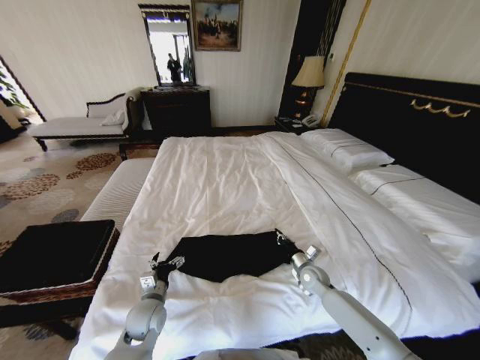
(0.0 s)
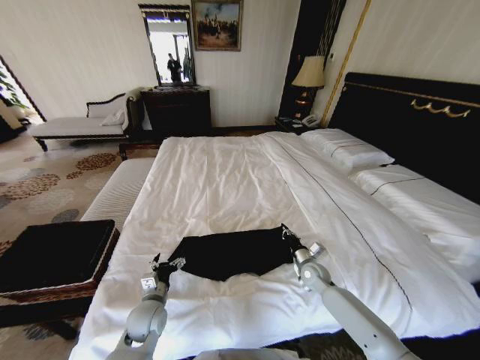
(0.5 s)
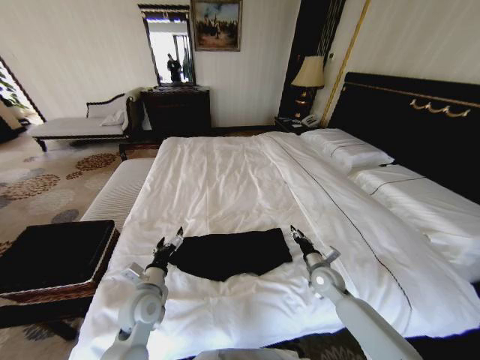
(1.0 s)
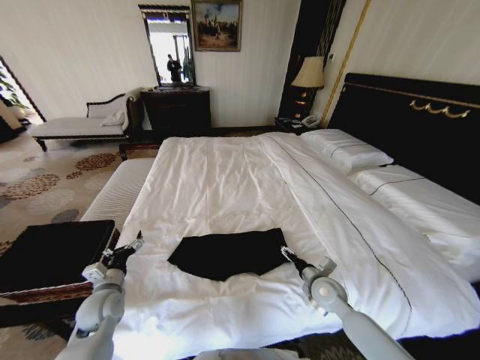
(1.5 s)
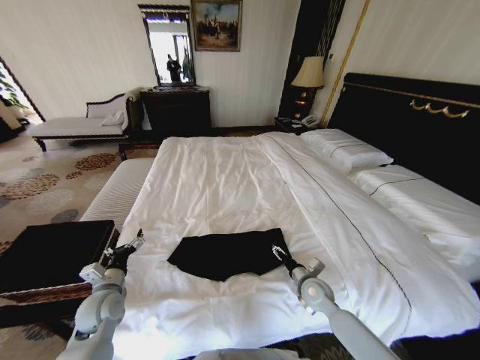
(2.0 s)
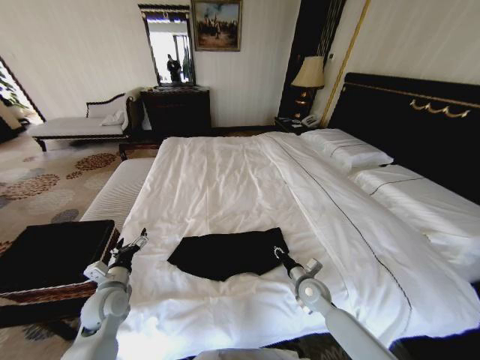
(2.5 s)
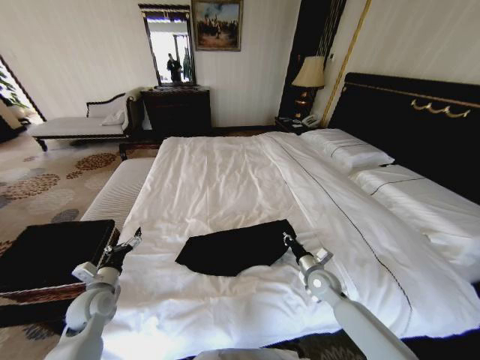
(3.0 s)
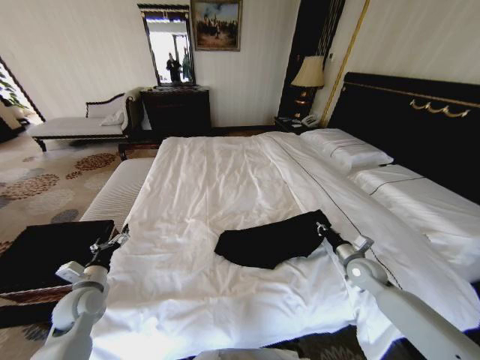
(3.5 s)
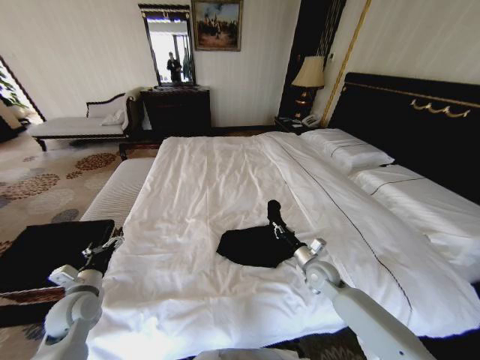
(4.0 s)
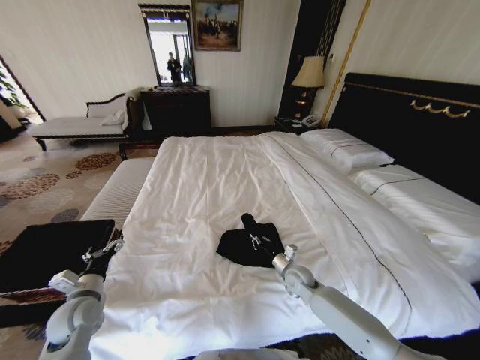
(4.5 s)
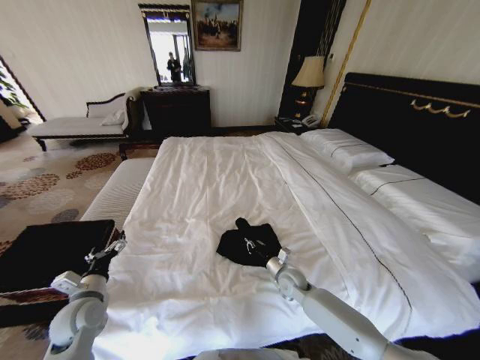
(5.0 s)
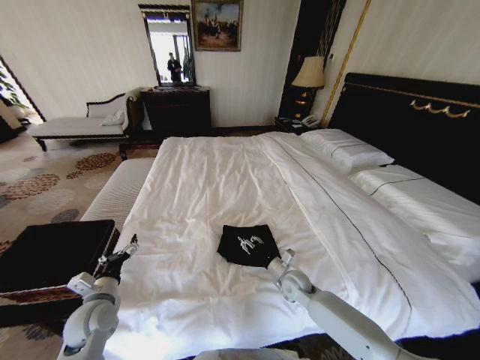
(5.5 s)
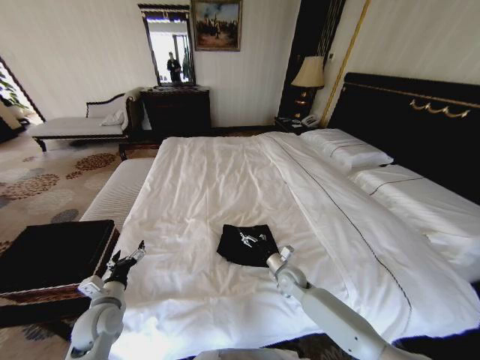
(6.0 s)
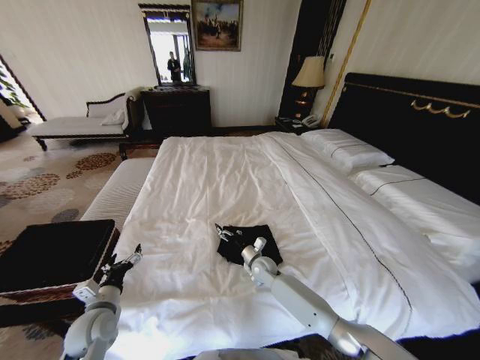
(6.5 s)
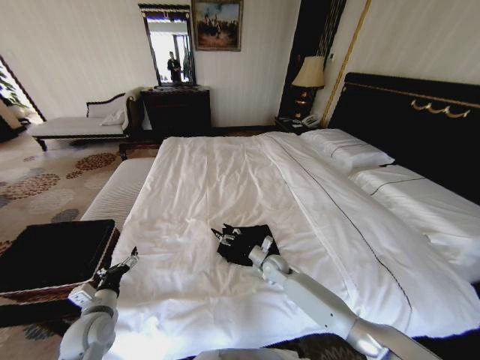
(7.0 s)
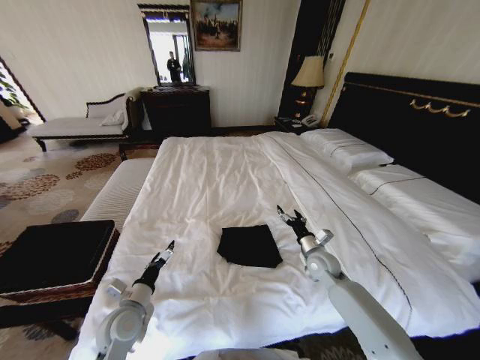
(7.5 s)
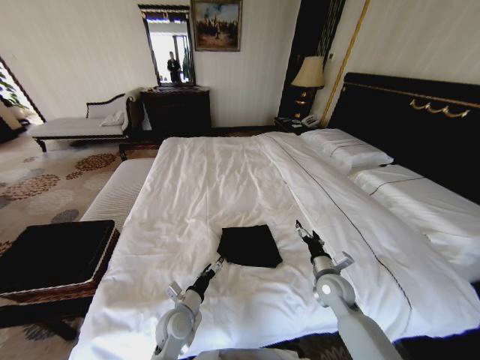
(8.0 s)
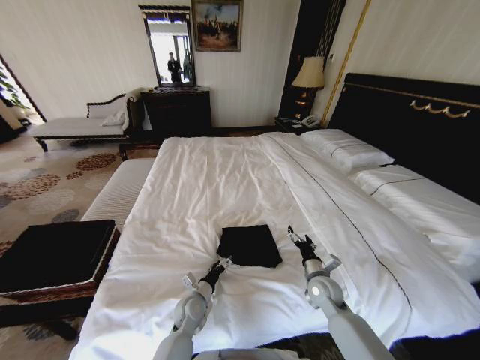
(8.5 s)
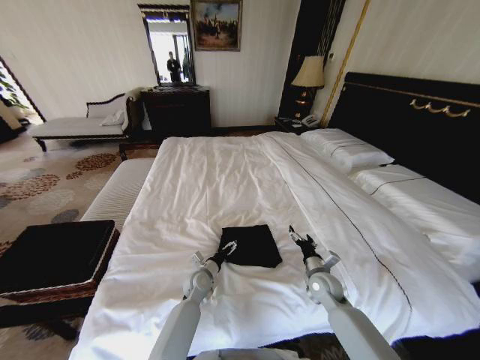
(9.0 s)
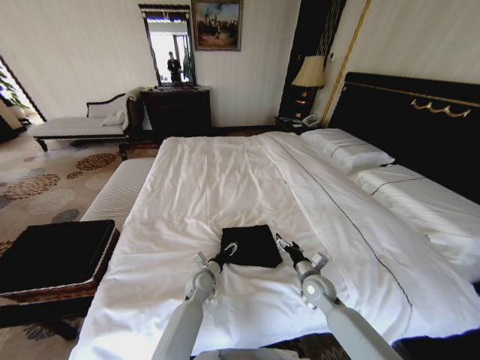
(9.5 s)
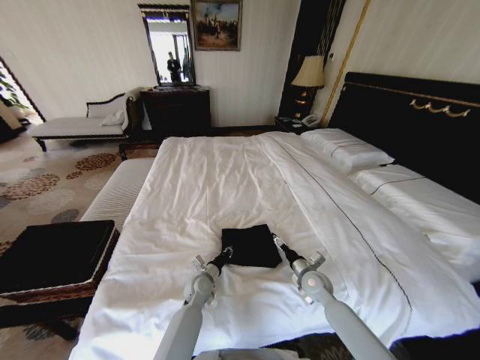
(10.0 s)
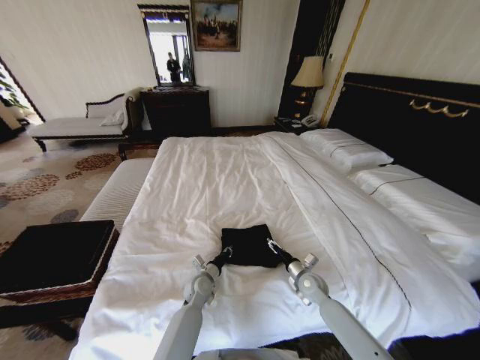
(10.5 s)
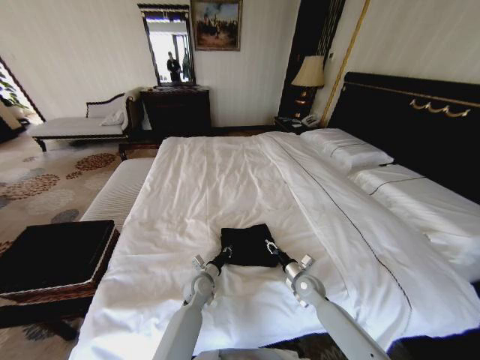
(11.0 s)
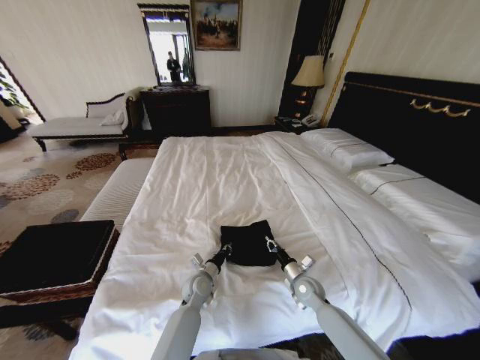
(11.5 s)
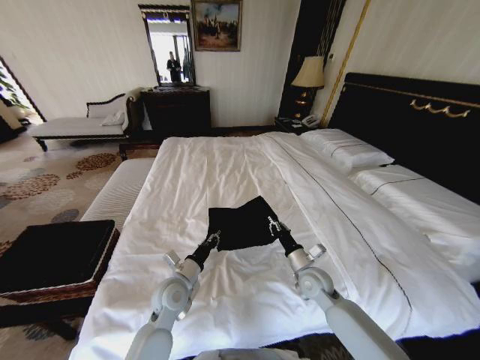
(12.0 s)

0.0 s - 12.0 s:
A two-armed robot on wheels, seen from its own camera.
Task of the whole recording: Fold the clothes on the bed and place them into the basket.
0.0 s - 2.0 s: The right gripper shifts approximately 5 cm backward, and opens its fingers. Meanwhile the left gripper shifts approximately 10 cm to the left and upward.
2.0 s - 4.0 s: The right gripper travels to the right and back again, roughly 15 cm each way, and closes up; the left gripper moves to the left, some 5 cm.
4.0 s - 6.0 s: The left gripper shifts some 5 cm to the right, while the right gripper heads to the left and downward, covering roughly 10 cm, and opens its fingers.
6.0 s - 8.0 s: The right gripper goes roughly 15 cm to the right, upward and backward. The left gripper moves to the right, some 20 cm.
8.0 s - 10.0 s: The right gripper travels downward by roughly 5 cm, while the left gripper travels forward by some 10 cm, and closes its fingers.
10.0 s - 12.0 s: The left gripper is displaced upward, backward and to the left by about 15 cm; the right gripper moves upward, roughly 5 cm, and closes its fingers.

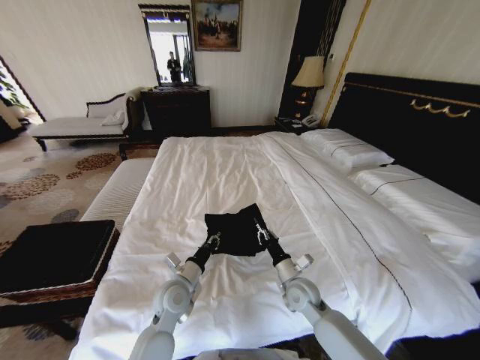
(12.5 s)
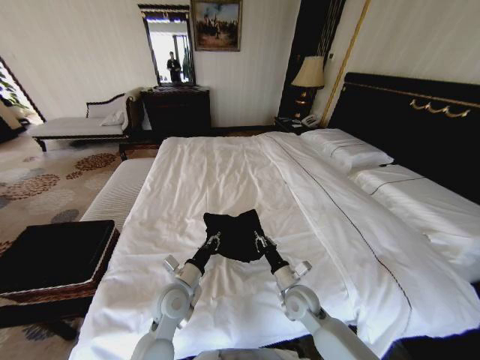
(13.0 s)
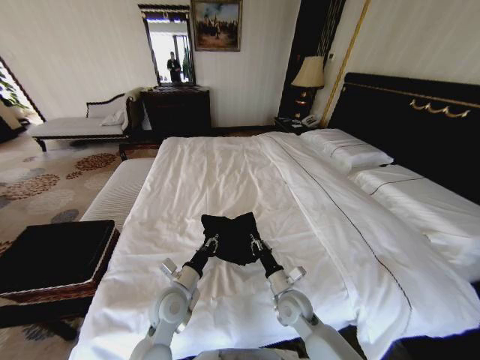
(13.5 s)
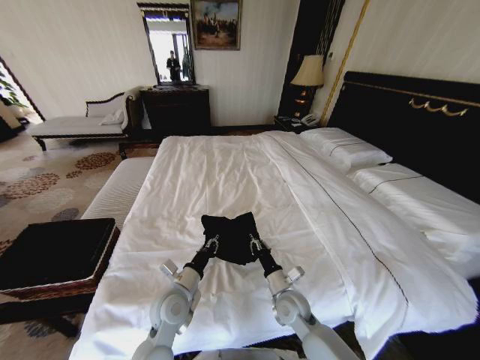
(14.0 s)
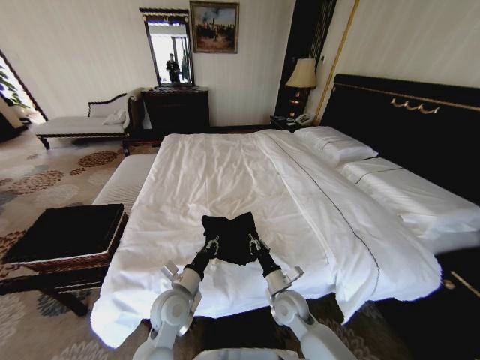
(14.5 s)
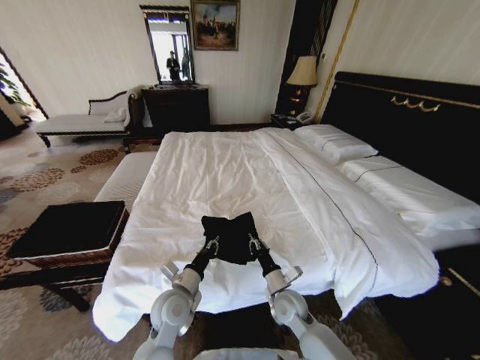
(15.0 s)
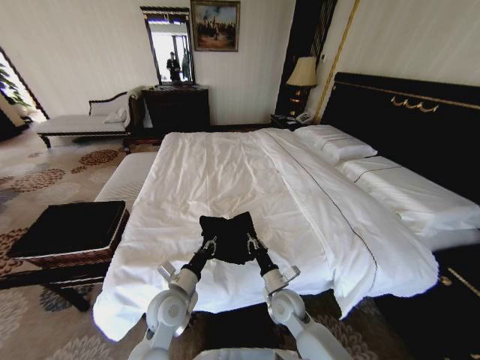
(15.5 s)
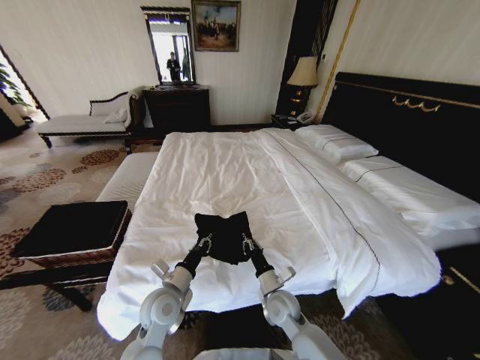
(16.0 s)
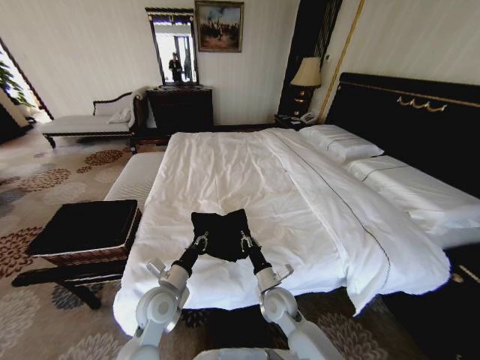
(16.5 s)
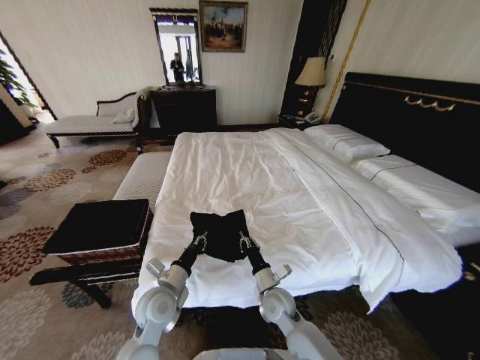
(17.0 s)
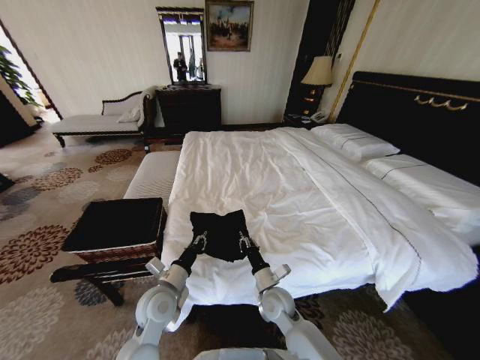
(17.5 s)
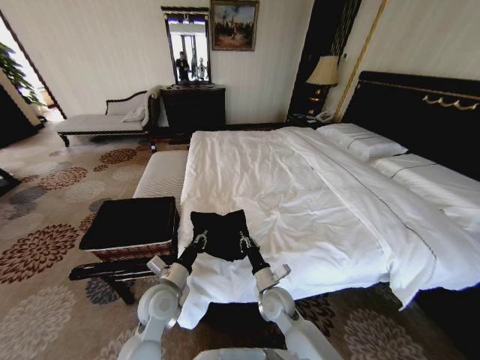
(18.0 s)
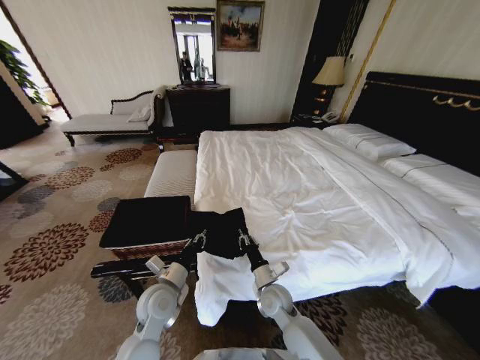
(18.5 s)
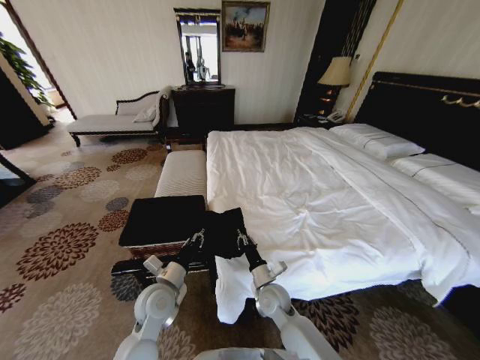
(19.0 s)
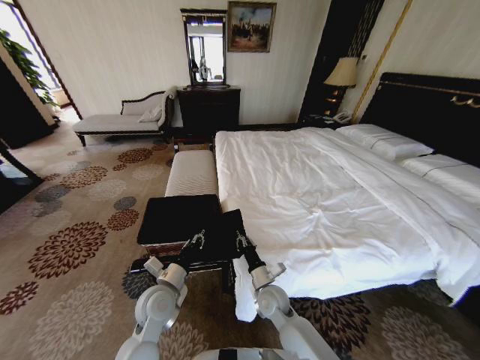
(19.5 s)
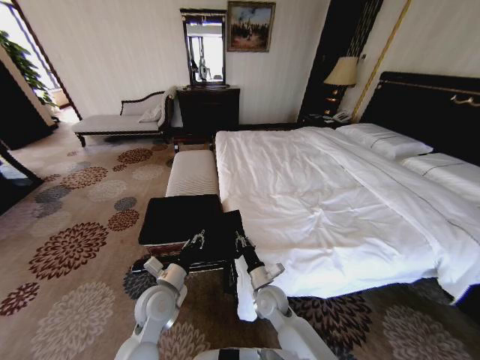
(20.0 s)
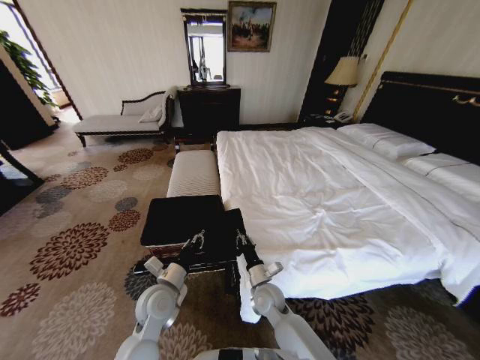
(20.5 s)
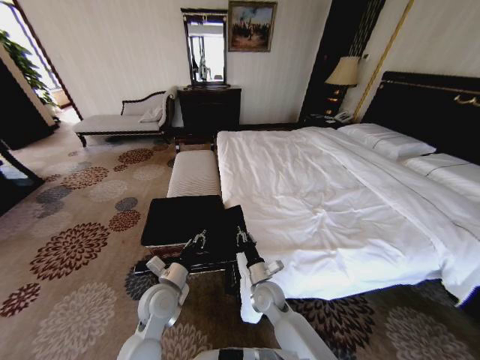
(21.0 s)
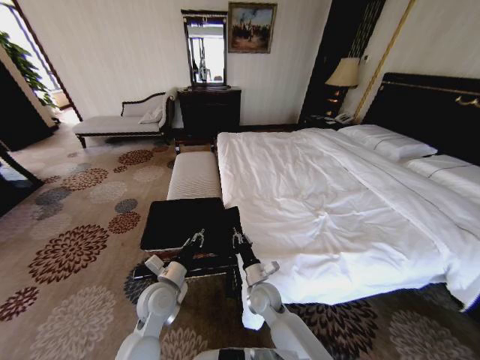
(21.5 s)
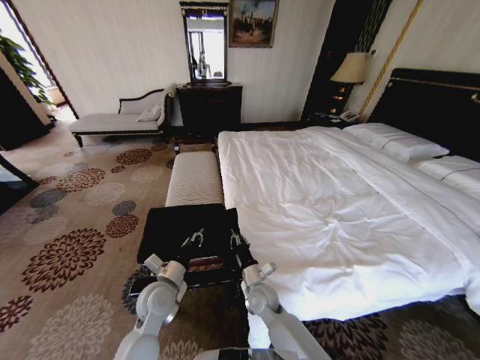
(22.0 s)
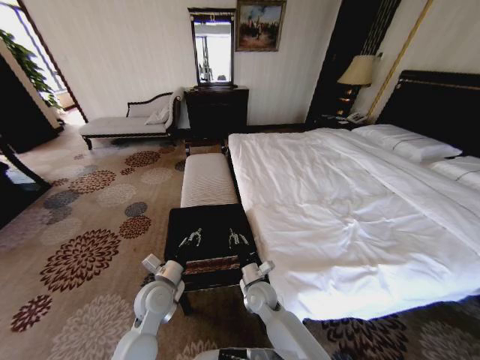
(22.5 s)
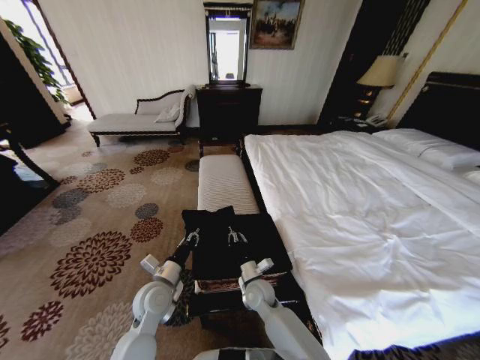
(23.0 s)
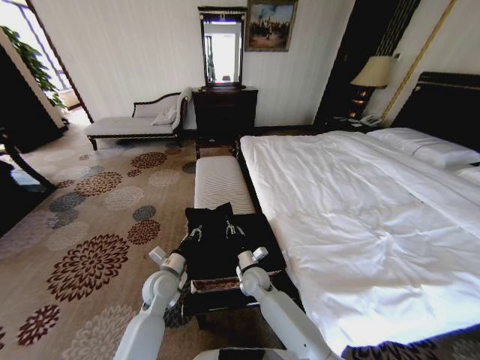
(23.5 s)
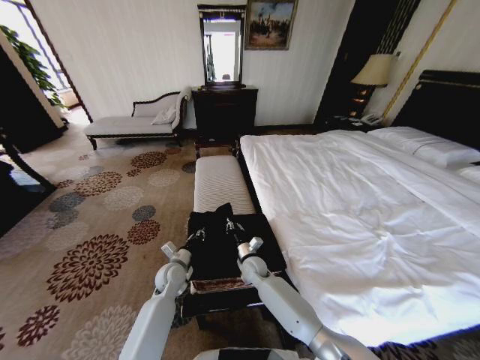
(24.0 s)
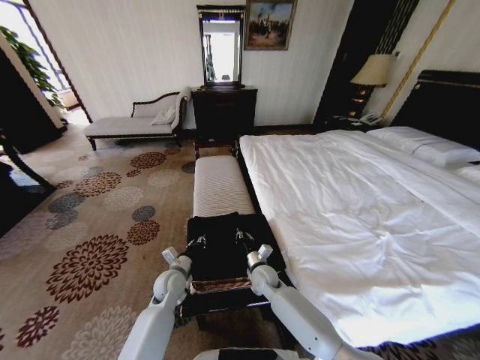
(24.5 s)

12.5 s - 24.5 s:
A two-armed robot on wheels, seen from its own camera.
Task of the whole recording: Fold the clothes on the bed and place them into the basket.
12.5 s - 14.5 s: The right gripper shifts by roughly 5 cm.
22.5 s - 24.5 s: The left gripper travels downward and forward by roughly 10 cm. Meanwhile the right gripper heads forward, covering about 5 cm.

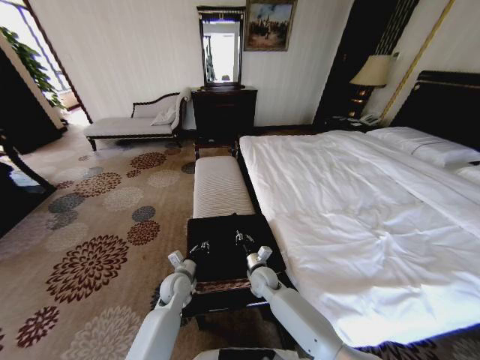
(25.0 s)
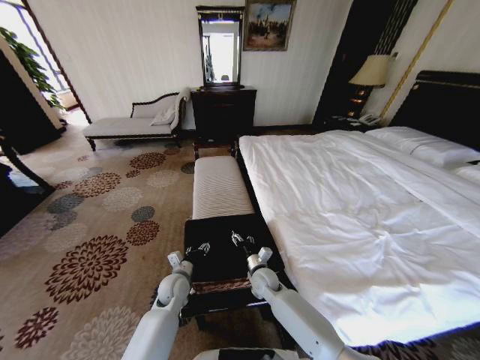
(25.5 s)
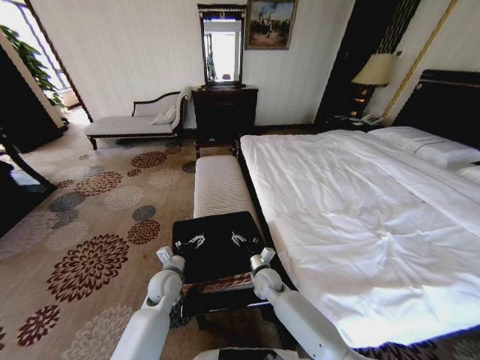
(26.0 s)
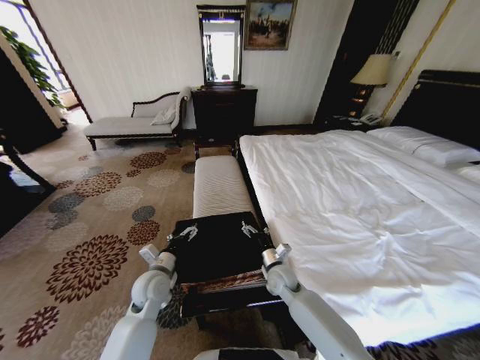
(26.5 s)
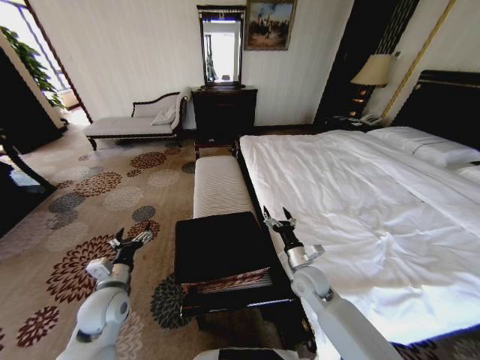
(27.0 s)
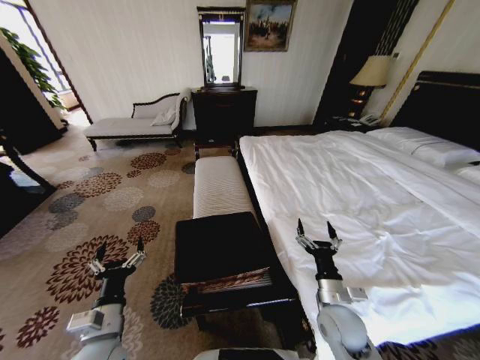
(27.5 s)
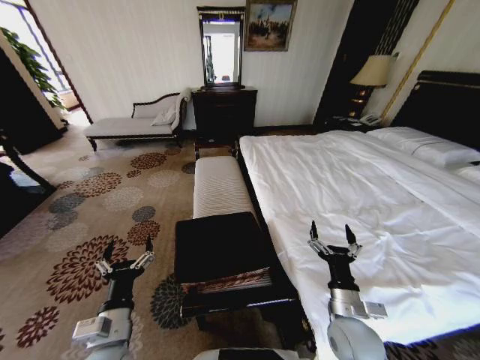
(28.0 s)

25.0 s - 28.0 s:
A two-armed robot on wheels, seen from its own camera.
Task of the whole recording: Fold the clothes on the bed and place them into the basket.
25.0 s - 26.5 s: The left gripper heads upward, covering roughly 10 cm, and opens its fingers. The right gripper goes about 5 cm to the right, and opens its fingers.
26.5 s - 28.0 s: The right gripper goes about 20 cm backward, to the right and upward. The left gripper heads backward, covering some 15 cm.
